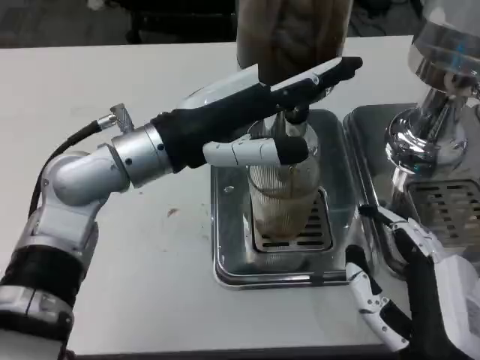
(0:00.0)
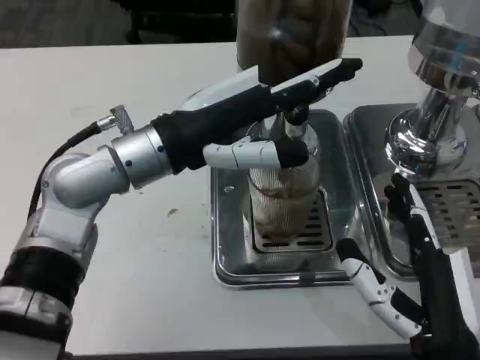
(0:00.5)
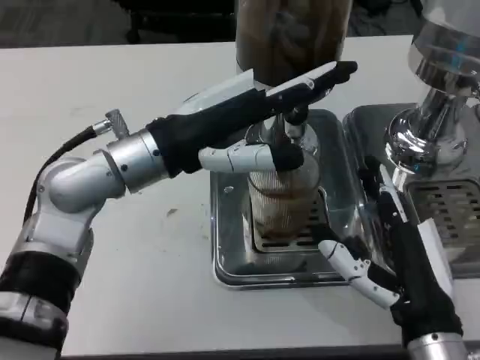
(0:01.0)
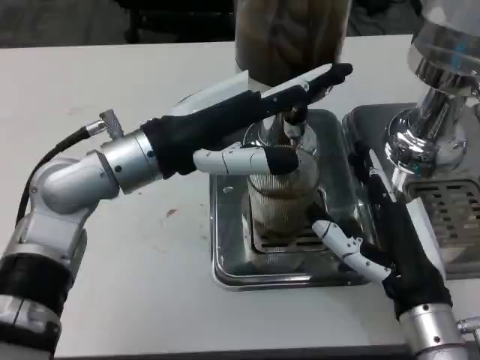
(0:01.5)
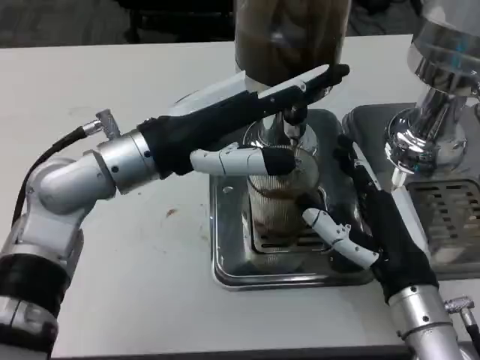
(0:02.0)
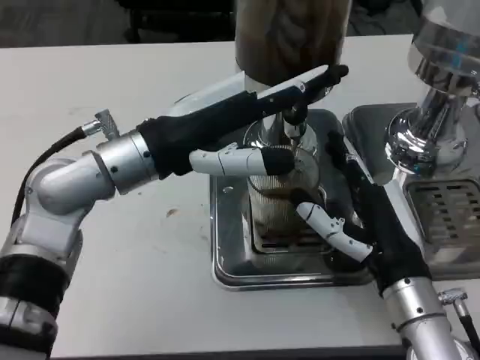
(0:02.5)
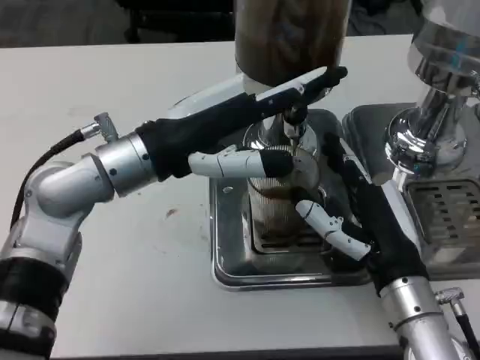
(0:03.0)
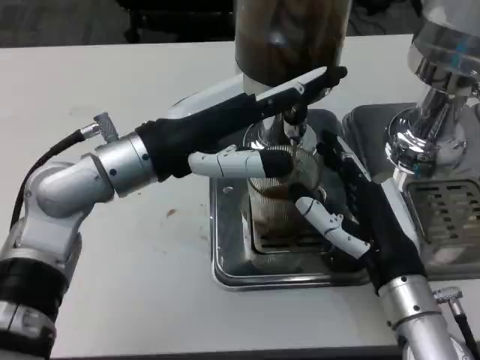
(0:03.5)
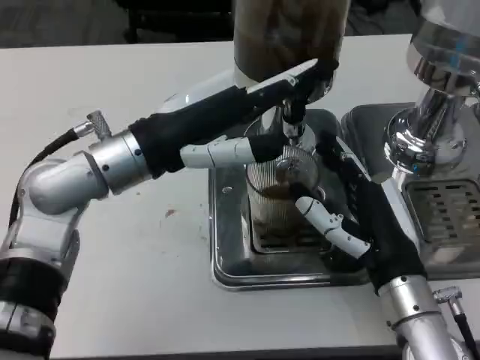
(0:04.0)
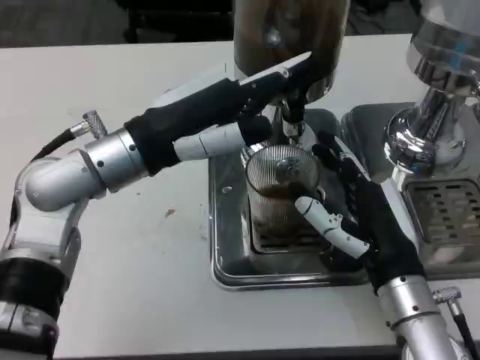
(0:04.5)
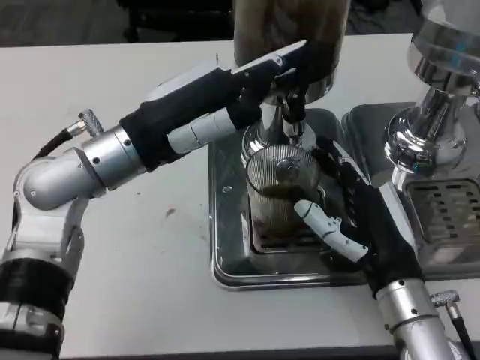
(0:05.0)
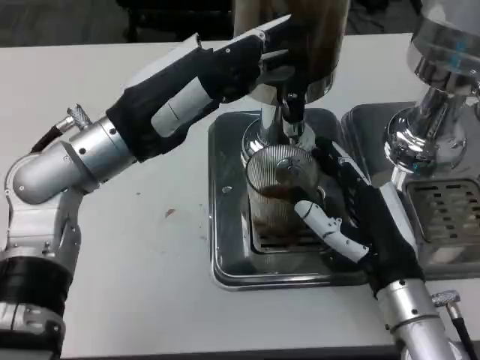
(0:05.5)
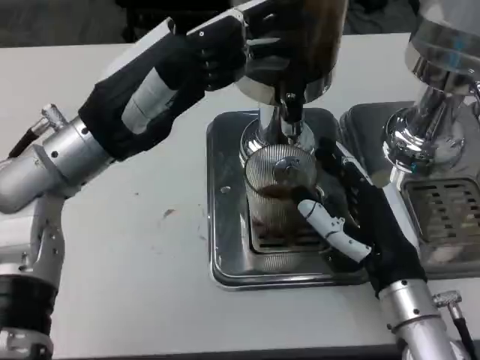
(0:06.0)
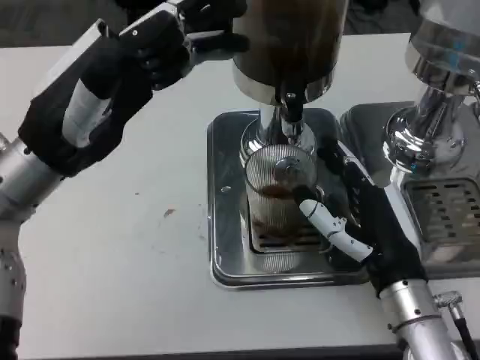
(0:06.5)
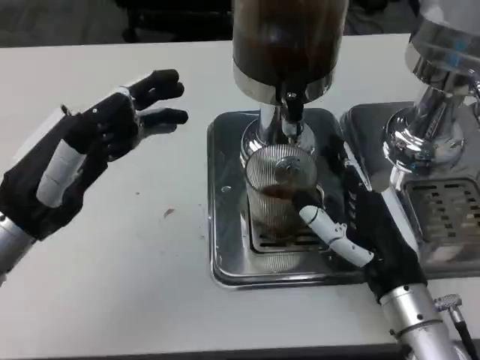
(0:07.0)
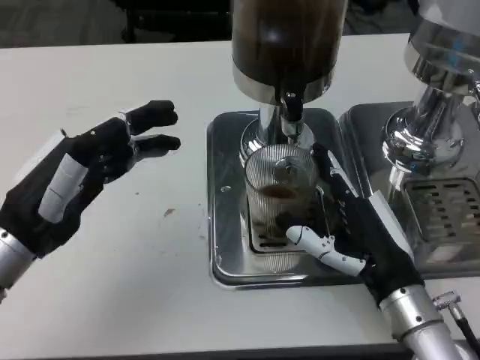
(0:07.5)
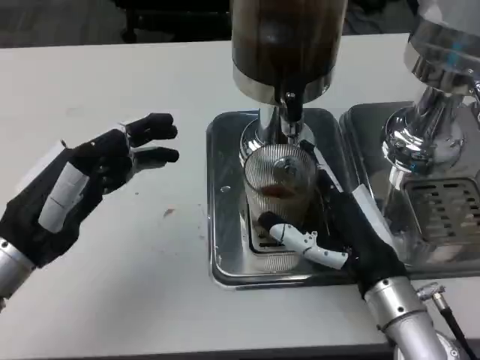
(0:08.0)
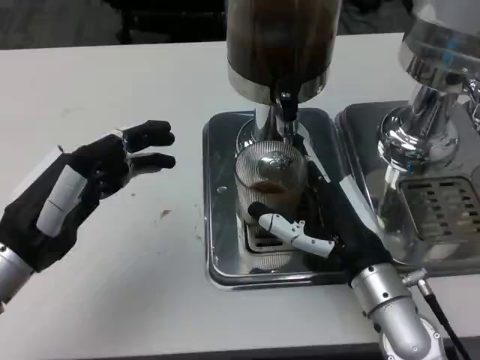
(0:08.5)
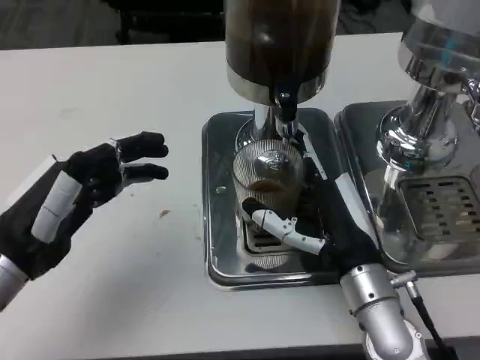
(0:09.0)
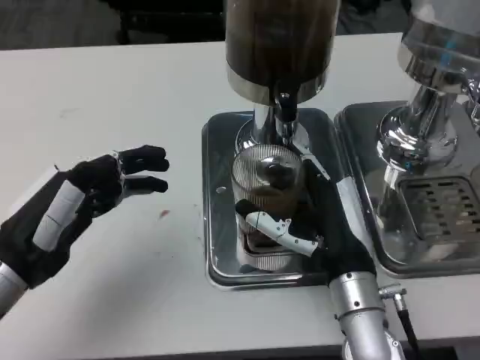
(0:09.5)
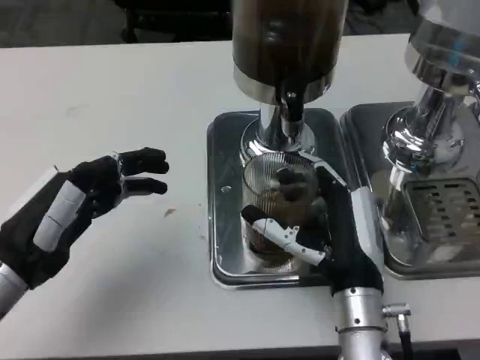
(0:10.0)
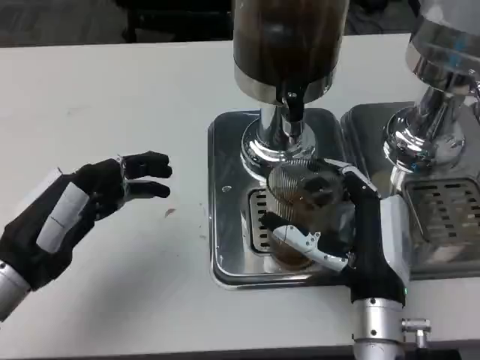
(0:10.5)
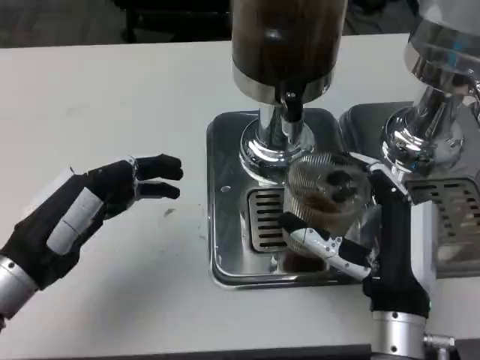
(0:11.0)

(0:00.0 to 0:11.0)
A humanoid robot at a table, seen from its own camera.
Task of the whole recording: Grasp the cup under the faucet to collect the drink, then remove the cup.
0:00.0 - 0:02.0: The right hand travels forward by some 10 cm.
0:02.0 - 0:03.5: Neither hand changes place.
0:05.5 - 0:07.5: The left hand goes about 15 cm backward, to the left and downward.

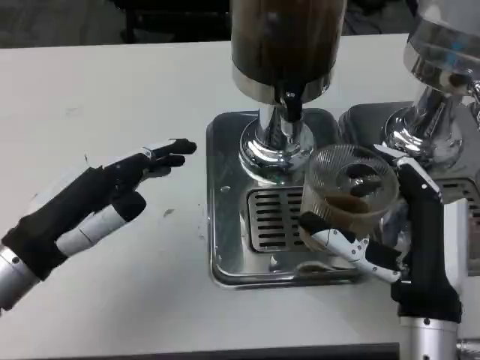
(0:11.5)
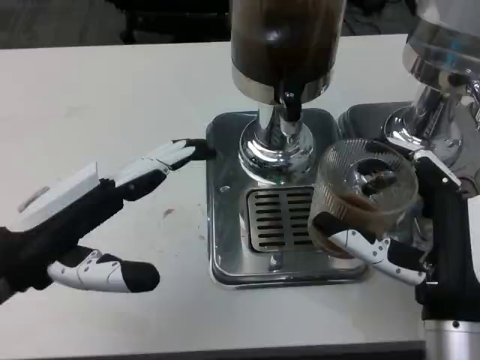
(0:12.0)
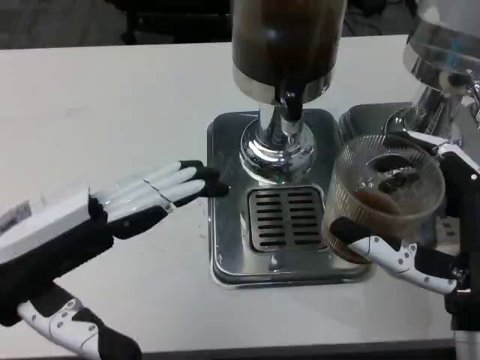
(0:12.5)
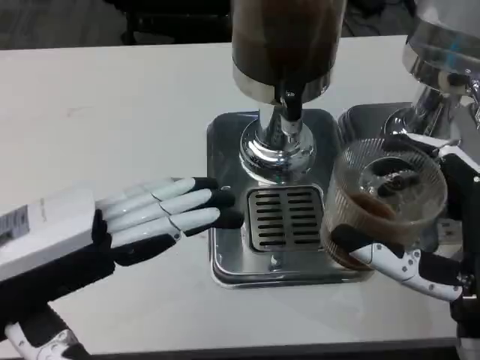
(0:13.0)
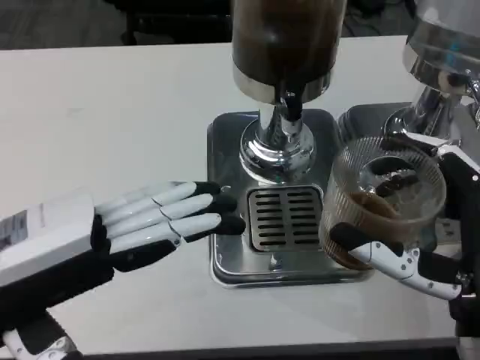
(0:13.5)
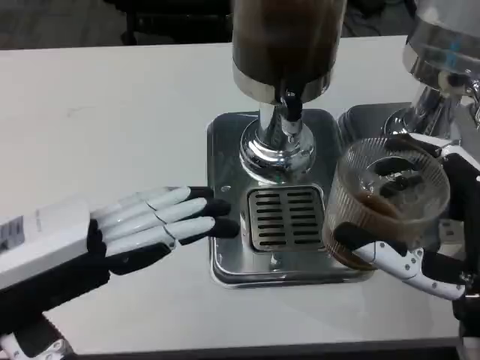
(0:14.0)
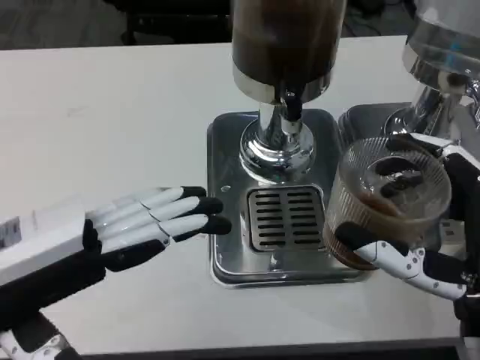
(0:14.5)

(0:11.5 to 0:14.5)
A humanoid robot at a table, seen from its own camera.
Task of the whole recording: Grasp the cup under the faucet to collect the drink, then remove the cup.
0:11.5 - 0:13.0: The right hand is displaced upward by approximately 5 cm. Meanwhile the left hand heads upward and backward, covering about 10 cm.
0:13.0 - 0:14.5: The two hands keep their place.

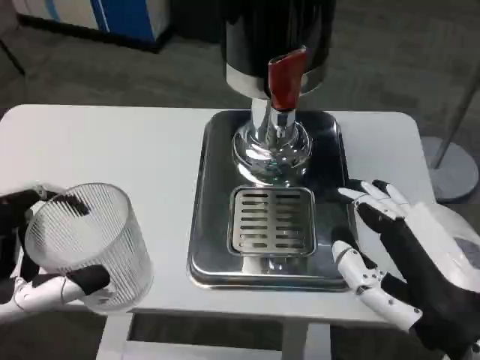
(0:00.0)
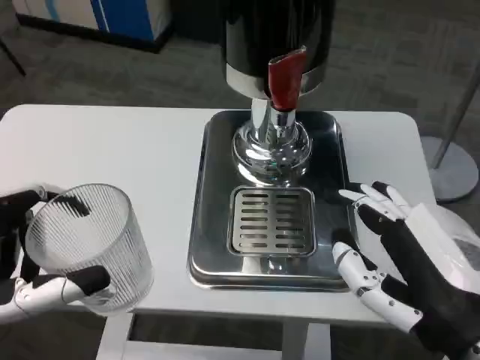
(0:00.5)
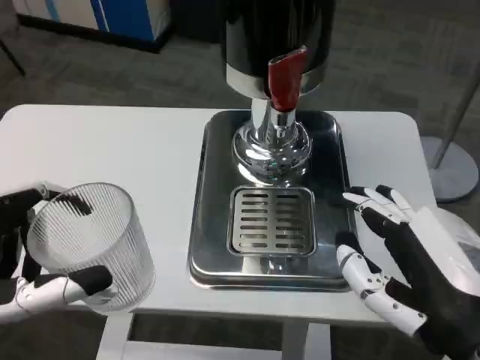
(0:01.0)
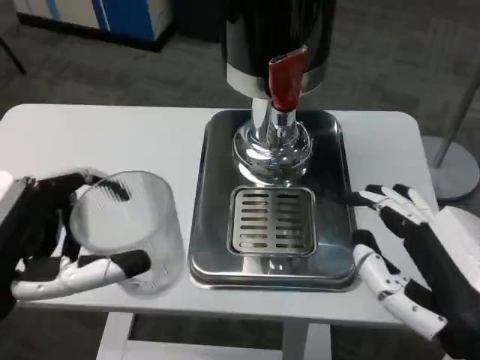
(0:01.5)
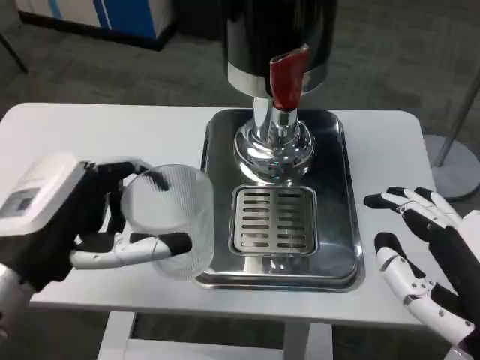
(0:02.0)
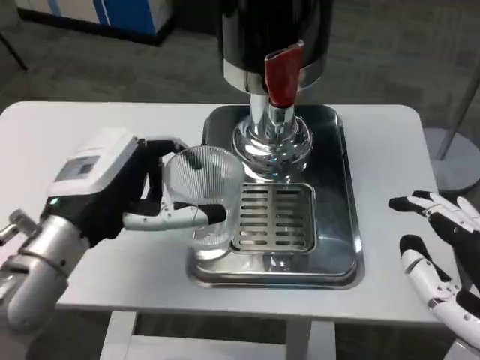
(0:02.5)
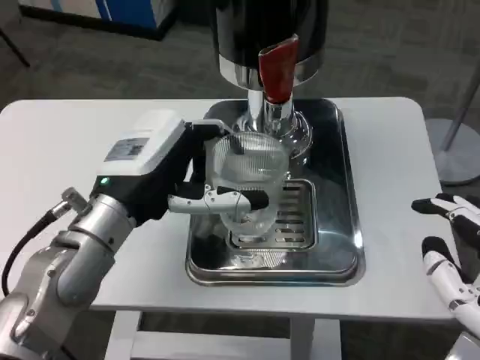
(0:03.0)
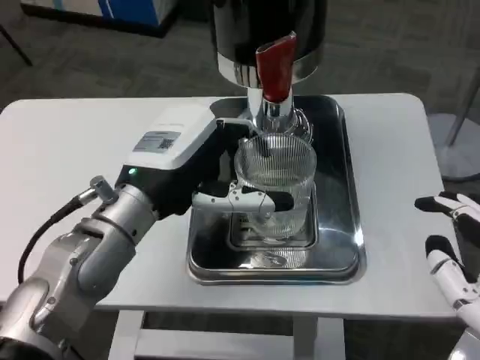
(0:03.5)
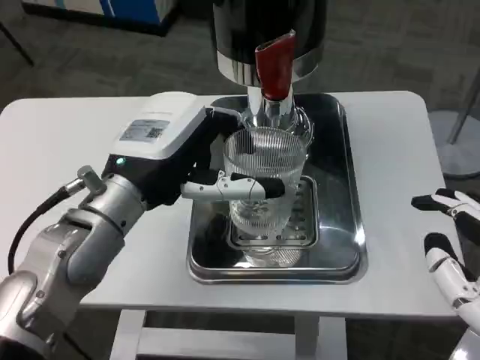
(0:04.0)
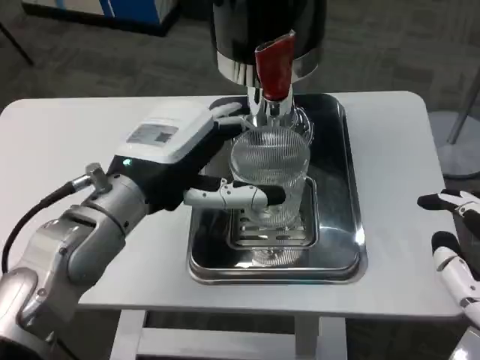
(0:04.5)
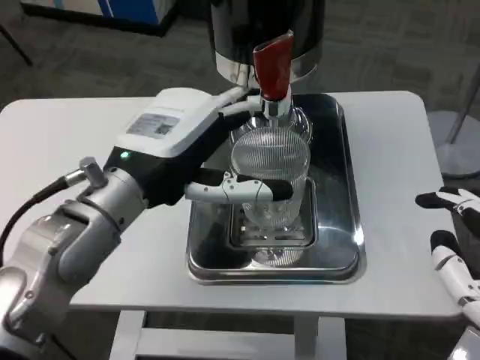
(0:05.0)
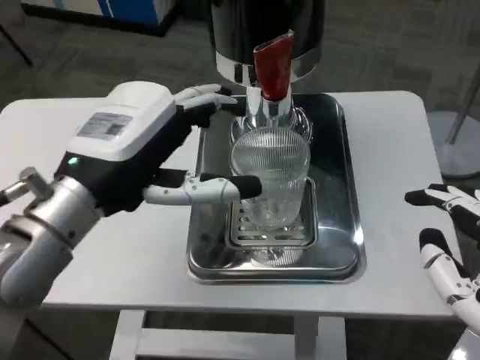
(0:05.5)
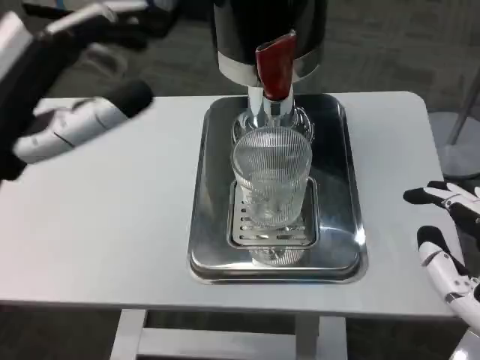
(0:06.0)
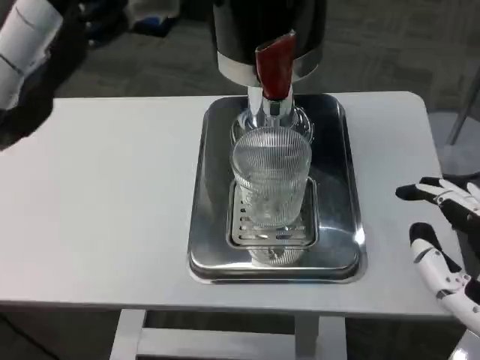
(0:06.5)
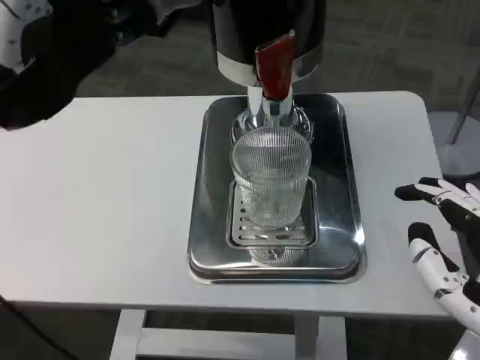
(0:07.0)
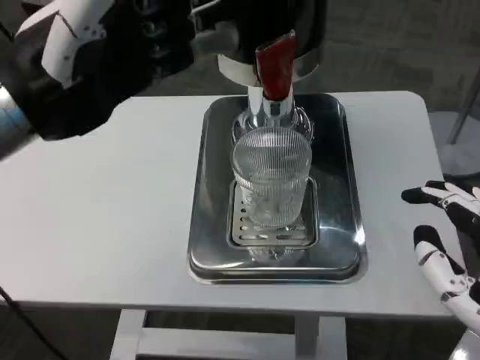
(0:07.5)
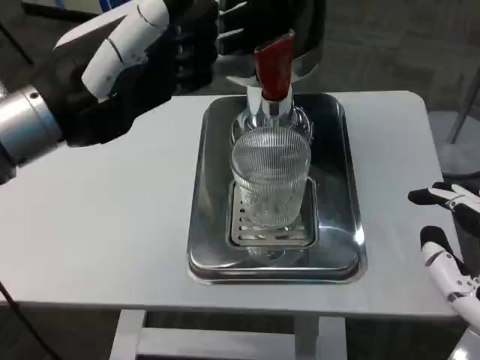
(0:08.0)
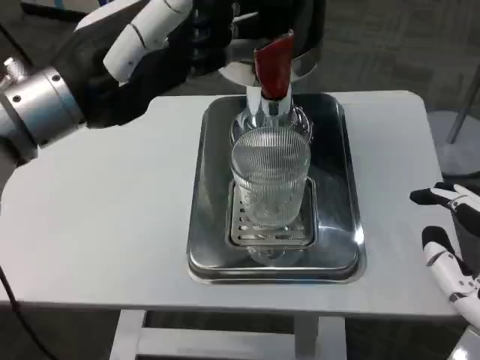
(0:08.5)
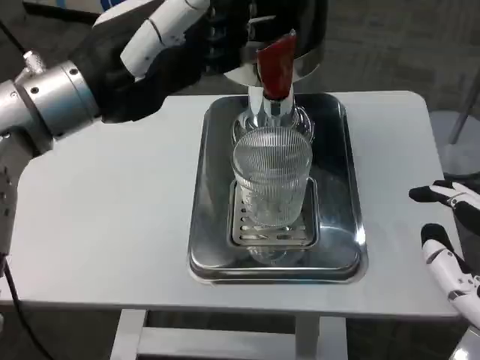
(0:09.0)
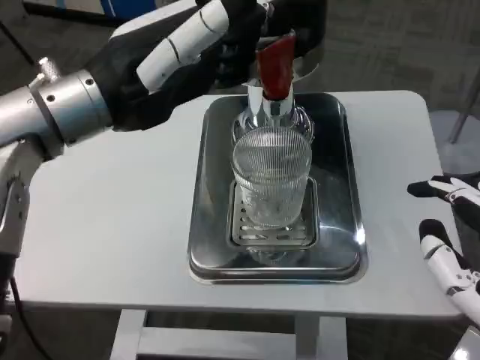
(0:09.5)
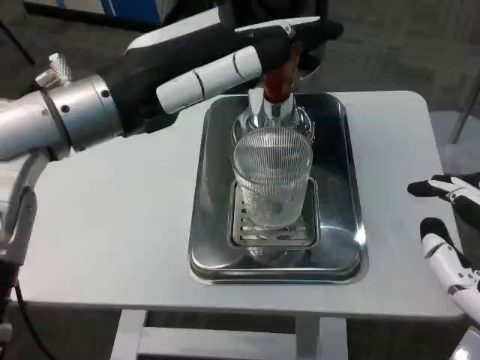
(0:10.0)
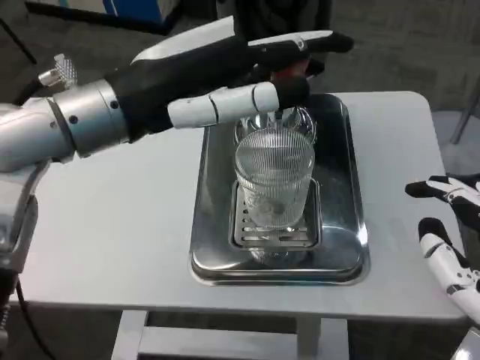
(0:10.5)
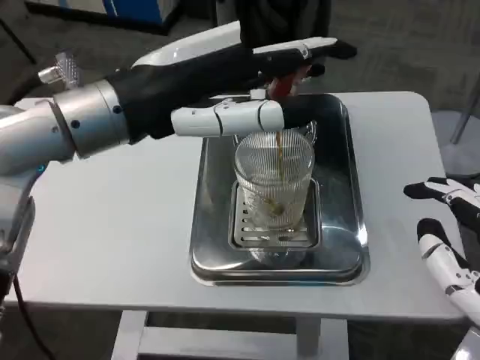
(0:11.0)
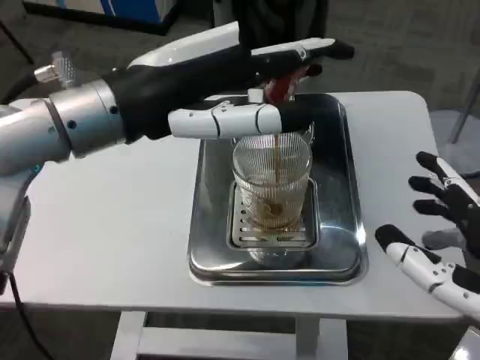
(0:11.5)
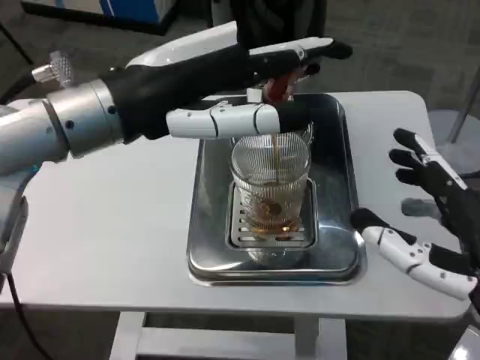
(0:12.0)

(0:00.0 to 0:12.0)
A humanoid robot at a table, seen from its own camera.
Task of the whole recording: Grasp the cup under the faucet to collect the drink, then remove the cup.
0:00.0 - 0:02.0: The left hand heads forward, covering some 5 cm.
0:02.0 - 0:04.0: The left hand shifts about 10 cm forward and to the right.
0:04.0 - 0:06.0: The left hand heads backward, to the left and upward, covering about 15 cm.
0:06.0 - 0:08.0: The left hand goes some 5 cm forward.
